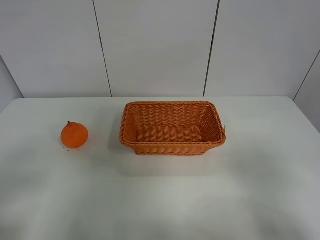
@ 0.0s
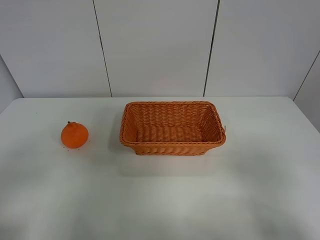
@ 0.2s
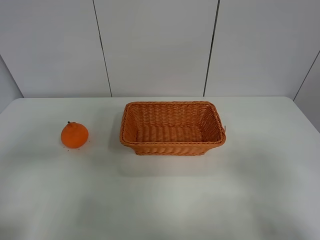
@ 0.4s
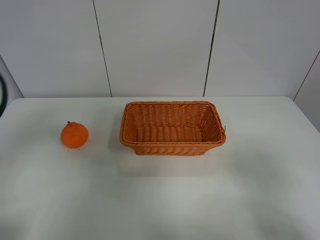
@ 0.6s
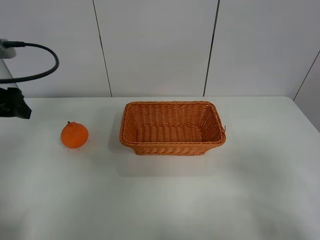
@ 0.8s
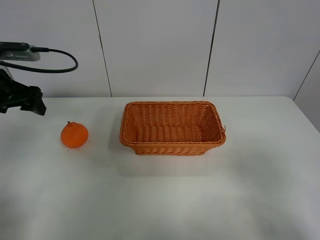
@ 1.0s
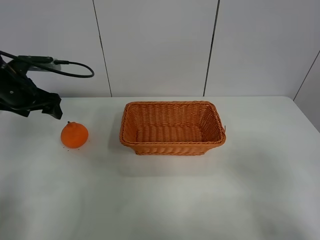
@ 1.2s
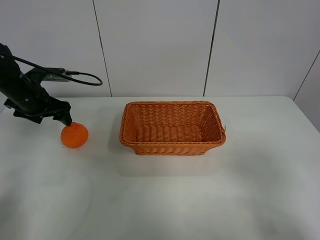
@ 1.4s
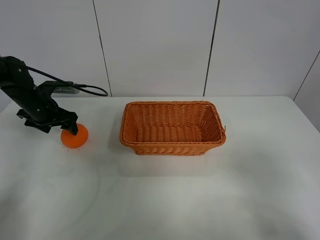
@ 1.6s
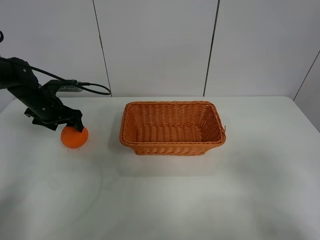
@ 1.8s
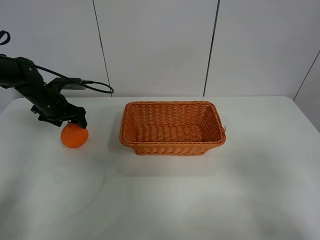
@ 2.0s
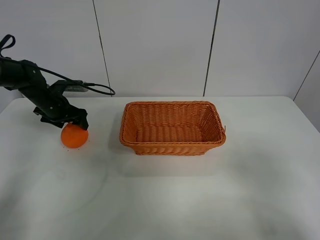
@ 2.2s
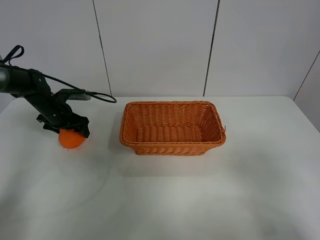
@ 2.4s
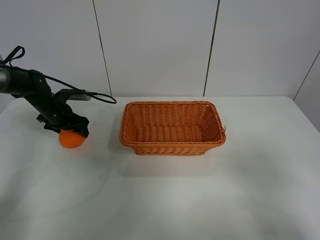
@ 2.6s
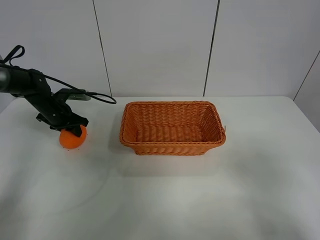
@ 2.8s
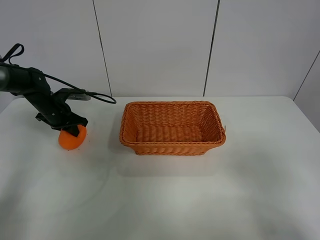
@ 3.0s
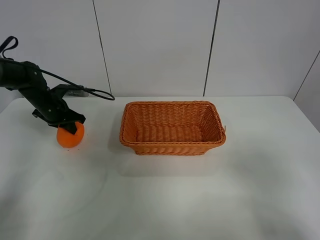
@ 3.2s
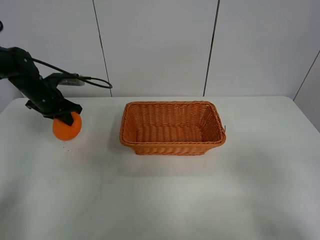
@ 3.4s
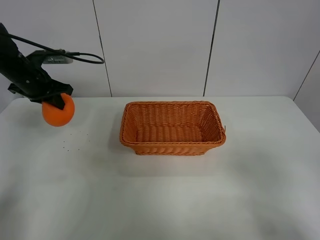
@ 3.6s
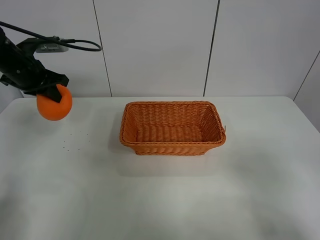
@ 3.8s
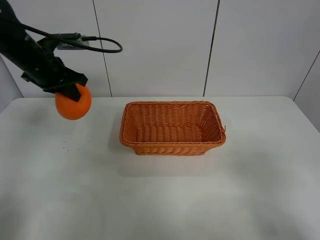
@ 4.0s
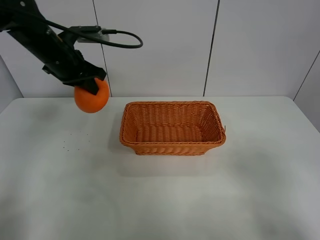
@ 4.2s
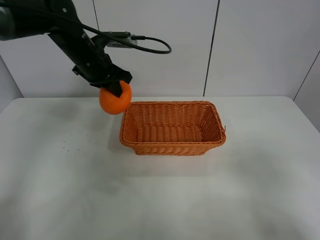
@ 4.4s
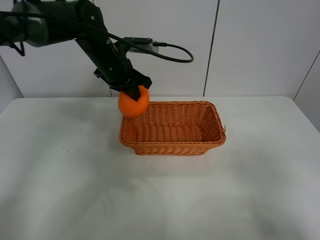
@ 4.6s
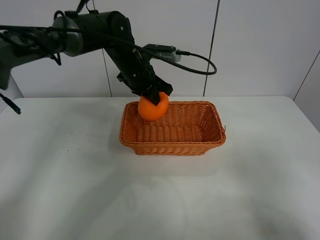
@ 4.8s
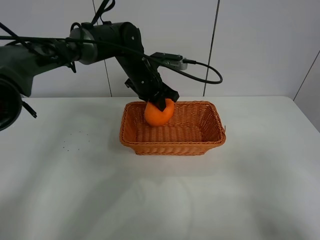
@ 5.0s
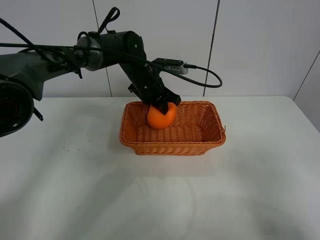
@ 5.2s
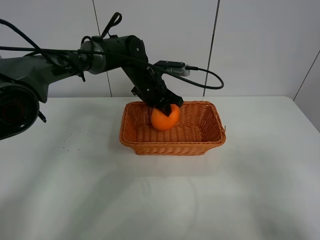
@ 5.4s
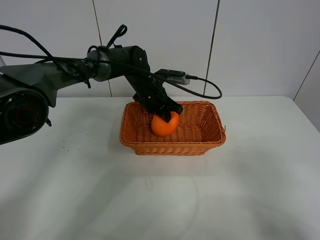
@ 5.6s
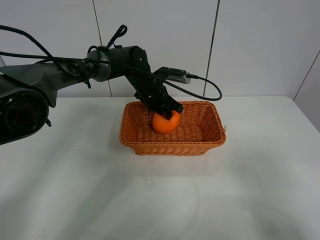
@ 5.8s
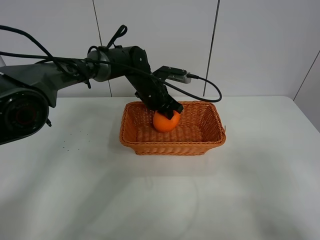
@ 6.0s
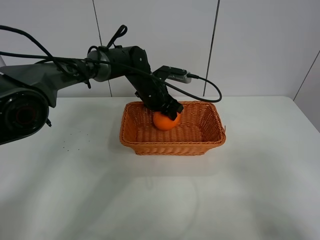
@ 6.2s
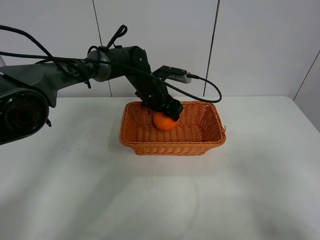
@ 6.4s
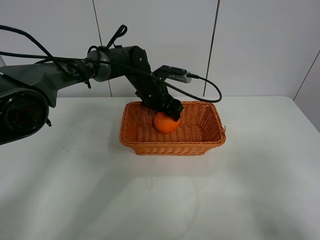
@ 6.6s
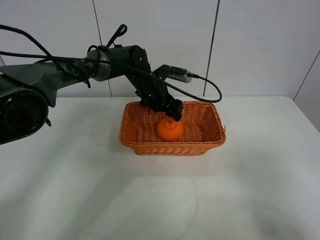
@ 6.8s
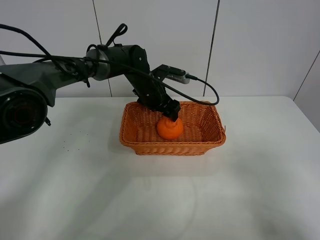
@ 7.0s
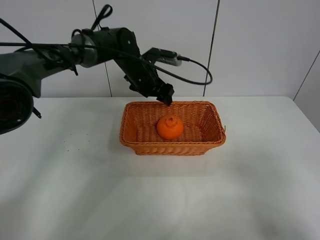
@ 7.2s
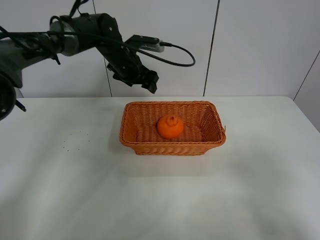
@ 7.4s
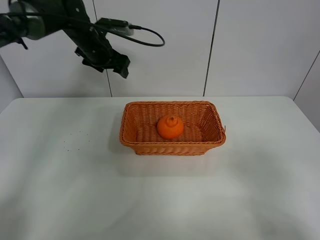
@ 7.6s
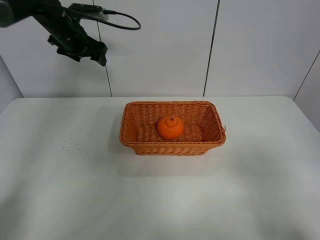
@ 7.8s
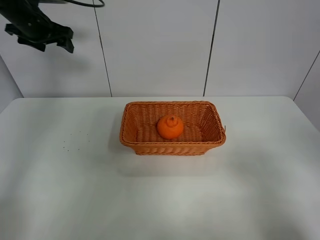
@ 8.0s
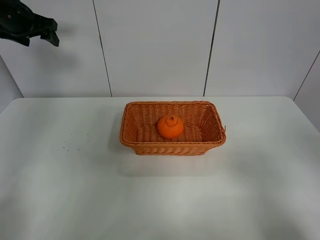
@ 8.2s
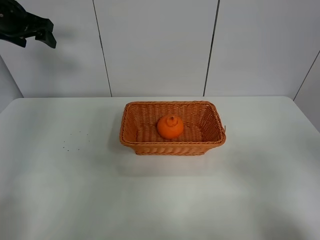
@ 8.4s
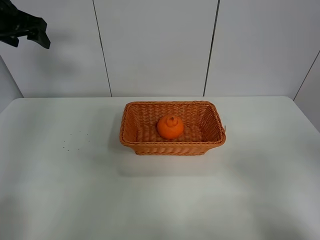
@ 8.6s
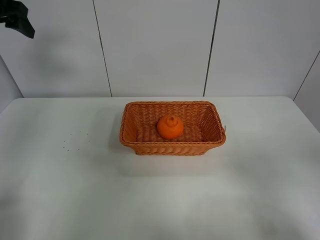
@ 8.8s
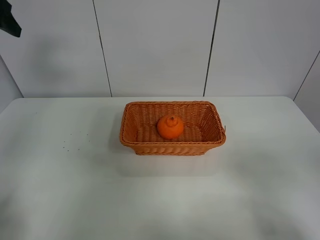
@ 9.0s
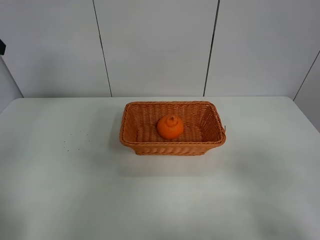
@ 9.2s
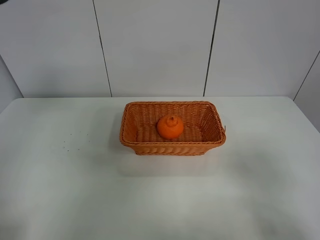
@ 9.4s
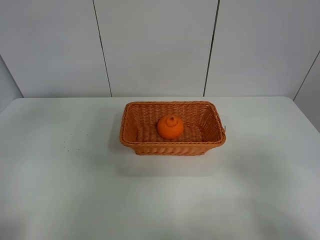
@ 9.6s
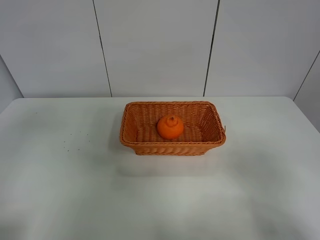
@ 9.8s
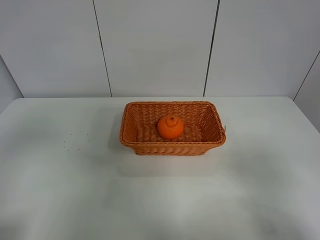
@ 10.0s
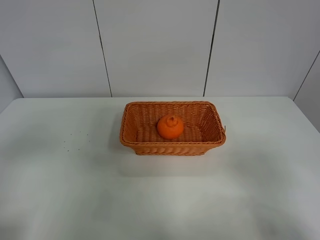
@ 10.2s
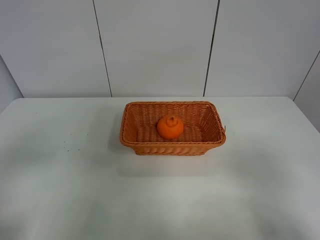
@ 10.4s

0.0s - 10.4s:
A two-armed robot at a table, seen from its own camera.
Task of the whole recording: left gripper grabs oranges and puts them in the basket.
Step, 0.0s - 3.0s: Grasp the orange with left gripper.
Step, 3.2s - 7.6s: Place the orange in the basket with left gripper.
0.0s - 1.4s: The left gripper moves forward, some 40 cm.
1.4s - 3.0s: The left gripper heads downward, covering approximately 10 cm, and closes up.
3.0s - 4.4s: The left gripper is displaced to the right and upward by some 20 cm.
4.4s - 6.0s: The left gripper is displaced to the right and downward by approximately 15 cm.
6.0s - 7.4s: The left gripper shifts roughly 10 cm to the left and upward, and opens its fingers.
7.4s - 9.0s: The left gripper is displaced to the left, upward and backward by some 35 cm.
9.0s - 10.4s: The left gripper travels backward by roughly 30 cm.
